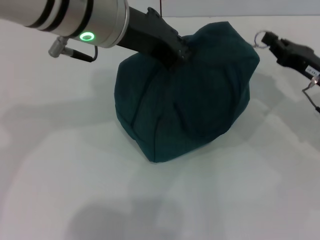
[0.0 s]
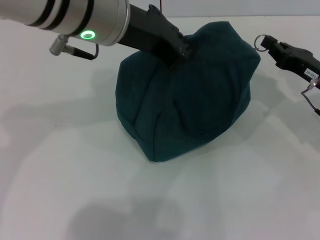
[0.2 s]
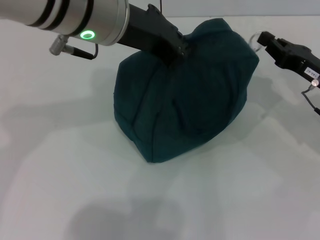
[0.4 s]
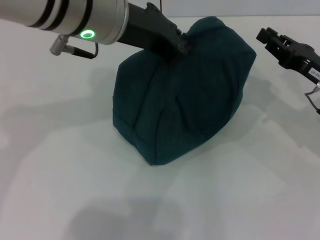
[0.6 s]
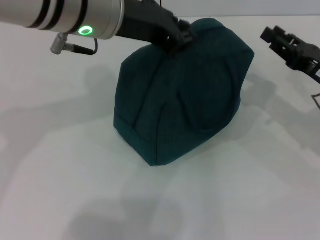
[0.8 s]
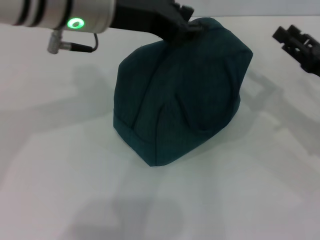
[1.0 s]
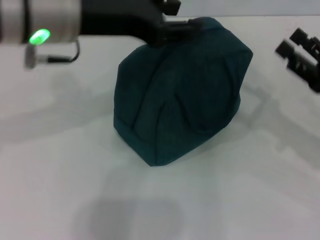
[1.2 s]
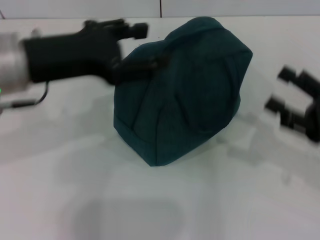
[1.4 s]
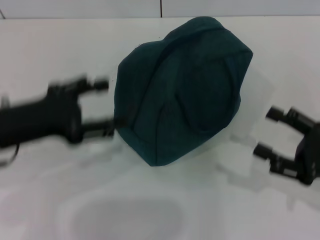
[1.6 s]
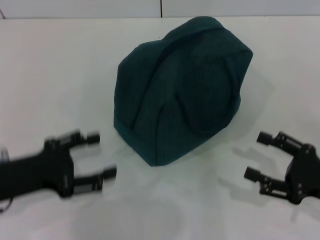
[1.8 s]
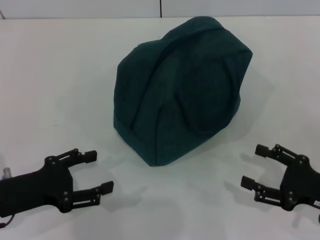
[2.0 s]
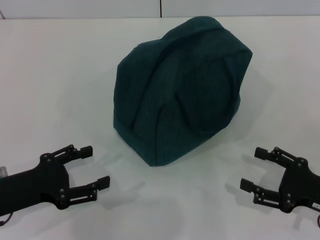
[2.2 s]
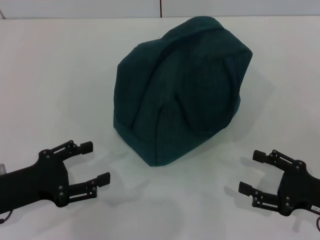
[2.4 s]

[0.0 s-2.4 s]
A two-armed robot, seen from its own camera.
0.0 to 1.2 s: The right gripper goes about 5 cm backward, and opens up. The left gripper is displaced to the left by about 5 cm.
1.2 to 2.4 s: The right gripper shifts approximately 10 cm backward and downward. The left gripper moves downward, to the left and backward, roughly 25 cm, and opens its fingers.

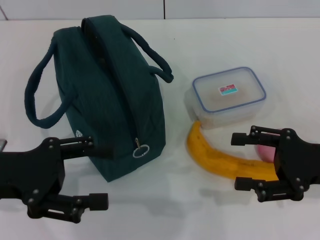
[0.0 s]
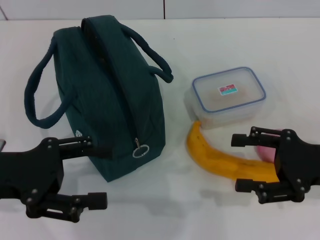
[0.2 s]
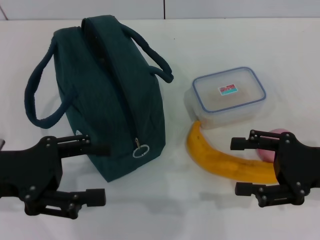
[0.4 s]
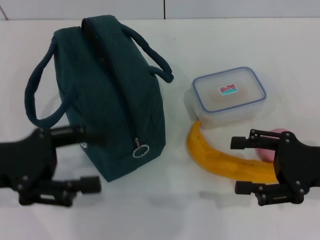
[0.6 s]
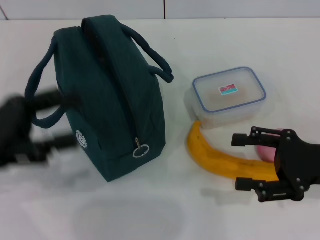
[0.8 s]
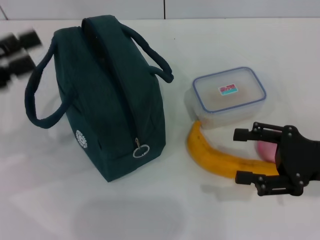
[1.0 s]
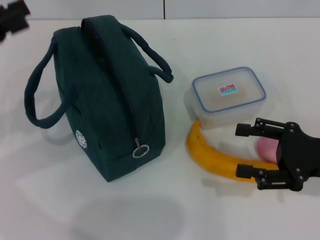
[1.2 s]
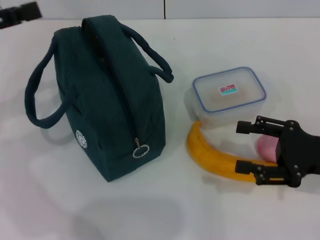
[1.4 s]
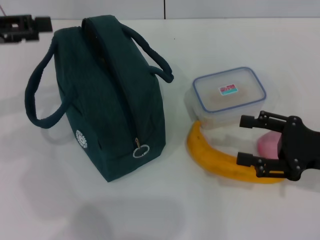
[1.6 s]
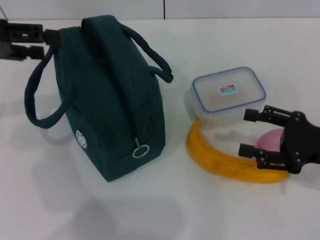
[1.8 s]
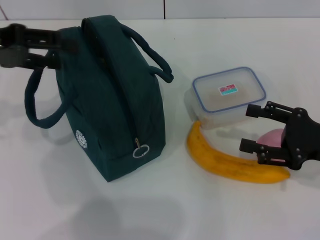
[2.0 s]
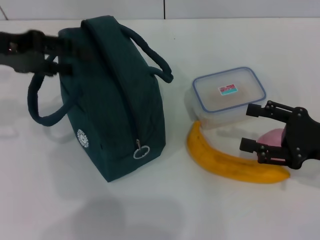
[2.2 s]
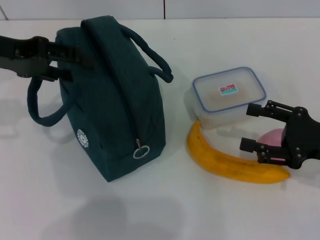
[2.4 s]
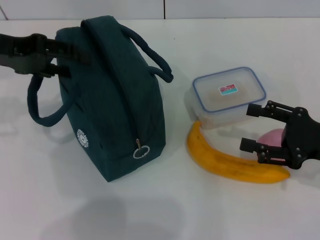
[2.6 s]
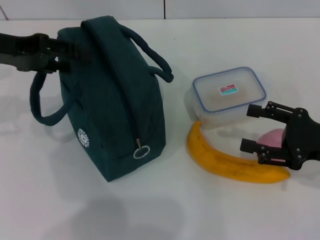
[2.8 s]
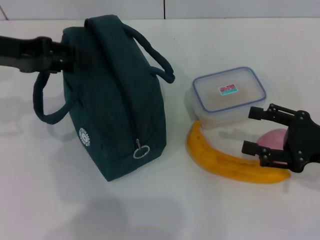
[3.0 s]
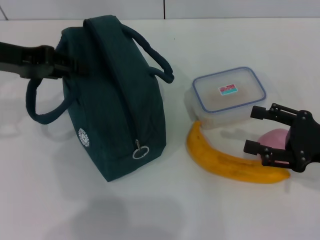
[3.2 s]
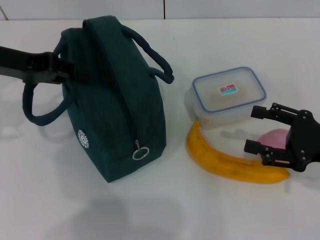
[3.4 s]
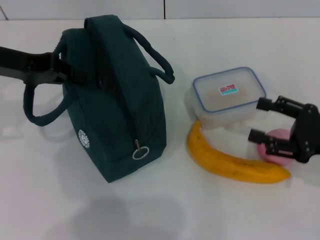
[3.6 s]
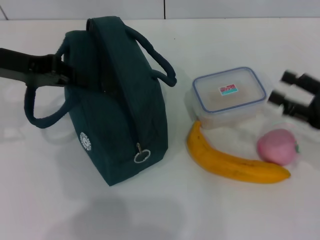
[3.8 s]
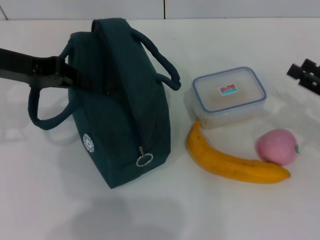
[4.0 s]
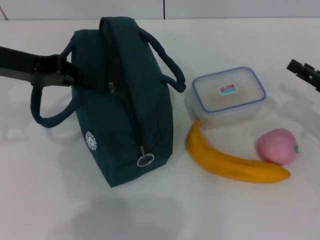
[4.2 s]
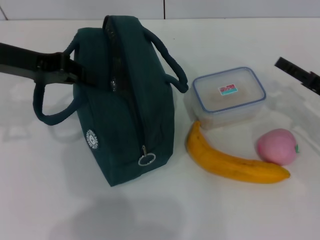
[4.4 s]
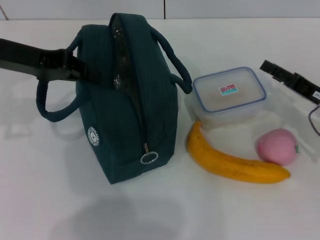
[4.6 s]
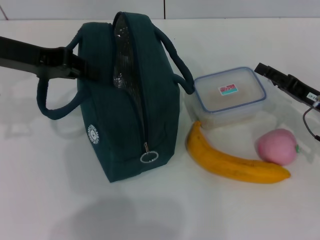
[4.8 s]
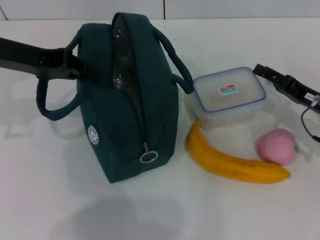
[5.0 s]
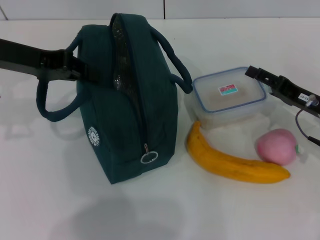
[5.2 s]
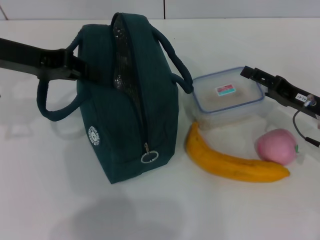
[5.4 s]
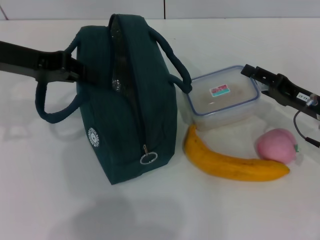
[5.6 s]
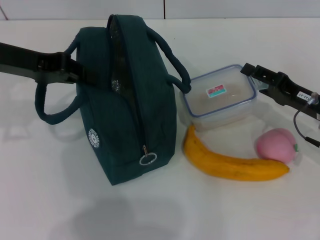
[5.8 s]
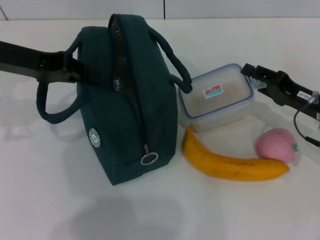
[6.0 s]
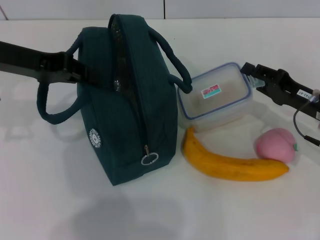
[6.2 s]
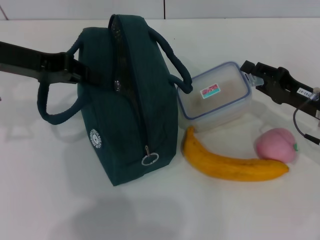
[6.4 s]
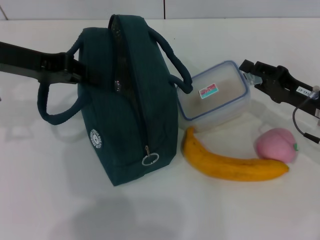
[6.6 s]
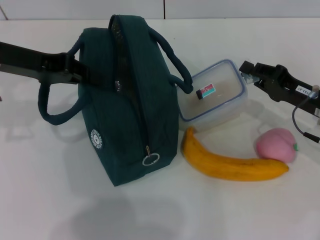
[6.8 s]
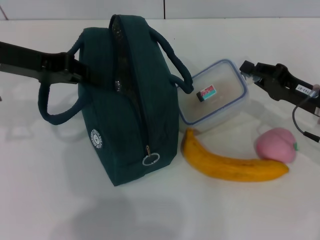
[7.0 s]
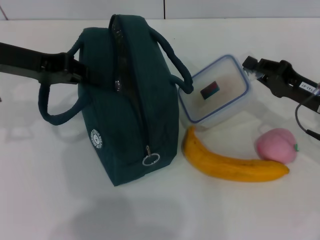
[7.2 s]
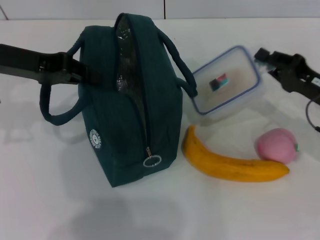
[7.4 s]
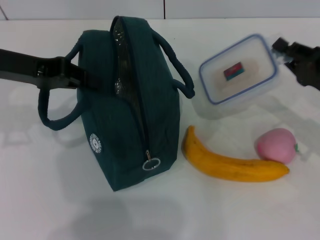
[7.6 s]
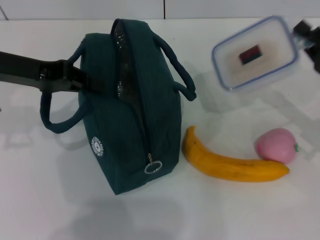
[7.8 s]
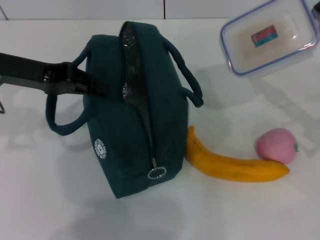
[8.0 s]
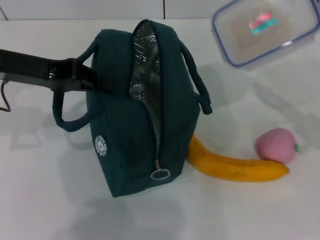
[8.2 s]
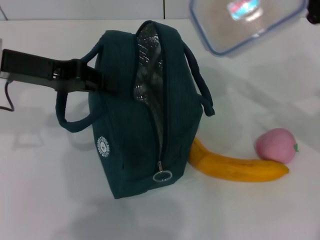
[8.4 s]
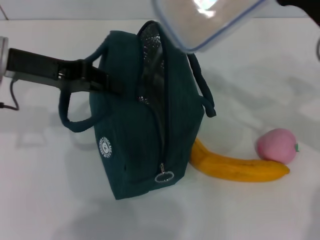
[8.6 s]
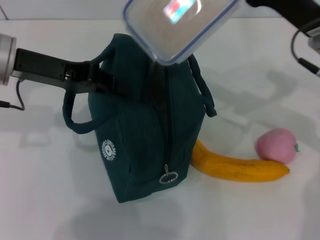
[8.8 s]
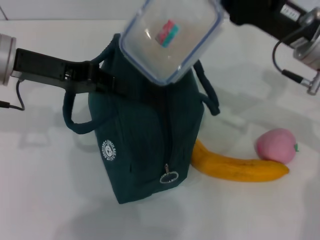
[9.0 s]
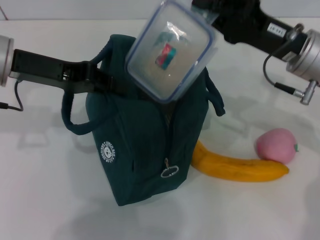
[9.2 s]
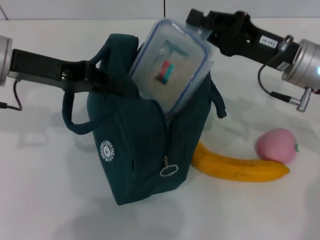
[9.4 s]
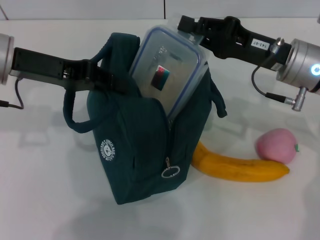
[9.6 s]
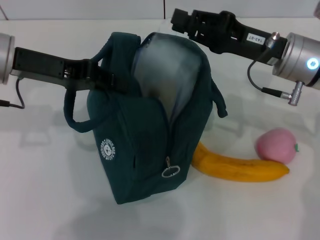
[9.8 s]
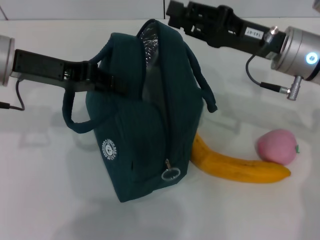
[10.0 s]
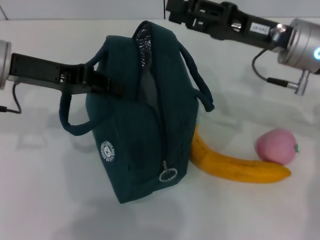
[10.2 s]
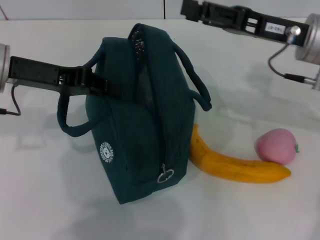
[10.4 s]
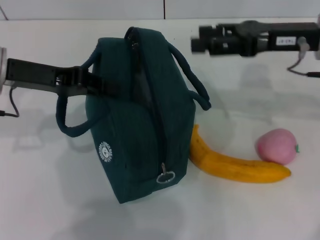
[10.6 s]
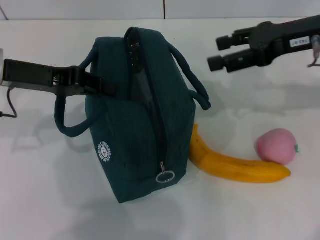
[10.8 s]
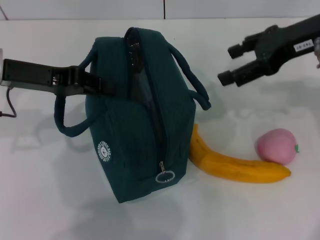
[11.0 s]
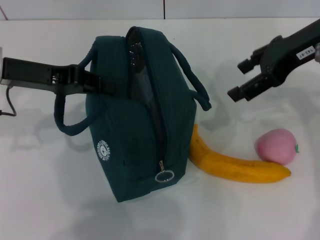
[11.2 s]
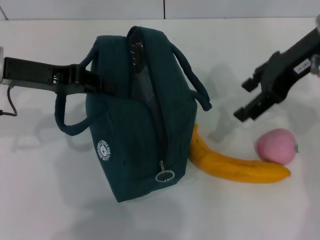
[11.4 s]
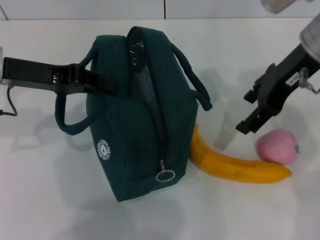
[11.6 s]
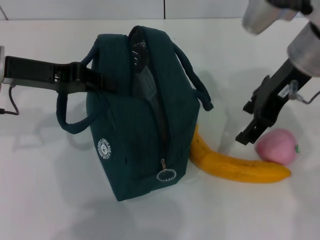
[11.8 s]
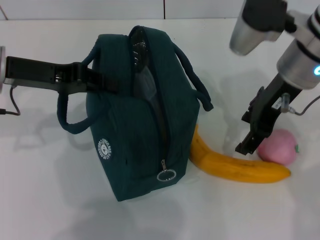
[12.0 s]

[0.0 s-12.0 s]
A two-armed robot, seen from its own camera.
Step, 0.0 to 4.4 s: Hold the lunch bag with your left hand.
Step, 4.6 to 5.6 s: Pick up the lunch box with your right hand.
Step, 6.0 to 9.8 s: Place the lunch box into the lunch bag with your right hand.
0.0 to 1.6 s: The left gripper goes some 15 cm forward, upward and to the left.
1.6 to 3.0 s: The left gripper moves approximately 5 cm.
3.0 to 4.4 s: The left gripper closes. The right gripper is displaced forward by approximately 5 cm.
6.0 to 7.6 s: The right gripper closes.
7.6 to 9.0 s: The right gripper heads to the left and upward, covering roughly 10 cm.
9.0 to 10.4 s: The right gripper opens up.
10.4 to 12.0 s: The right gripper moves to the left, roughly 5 cm.

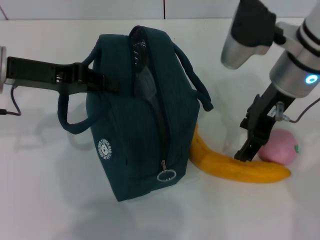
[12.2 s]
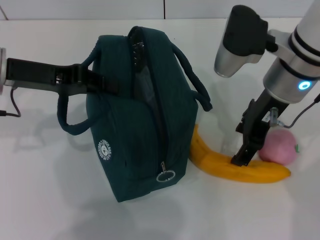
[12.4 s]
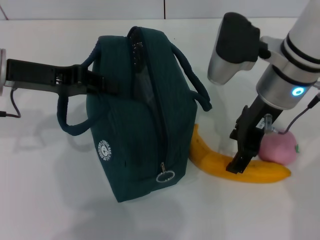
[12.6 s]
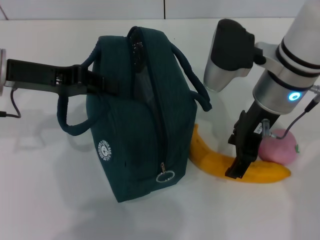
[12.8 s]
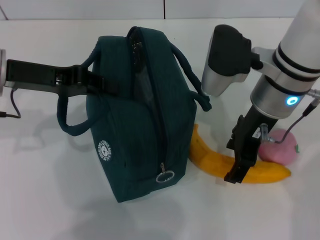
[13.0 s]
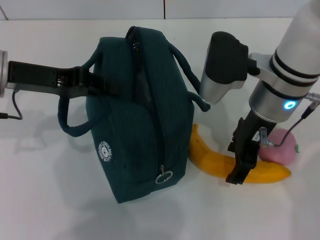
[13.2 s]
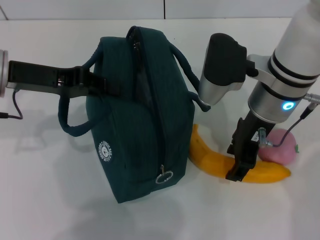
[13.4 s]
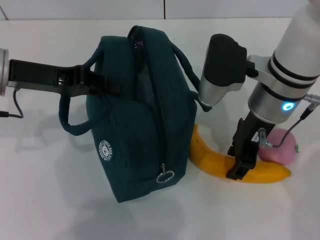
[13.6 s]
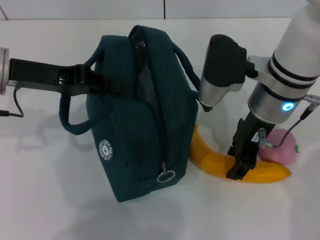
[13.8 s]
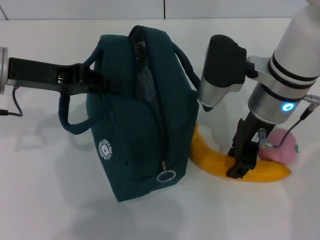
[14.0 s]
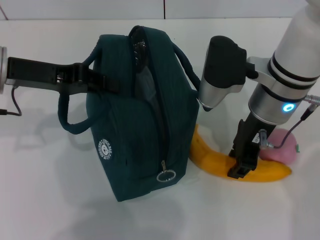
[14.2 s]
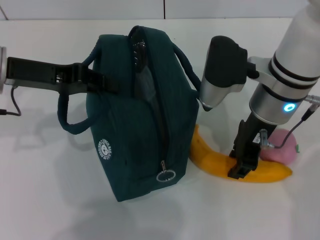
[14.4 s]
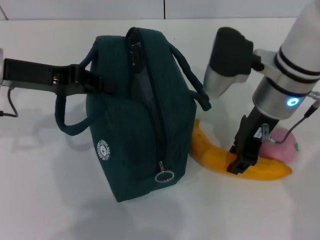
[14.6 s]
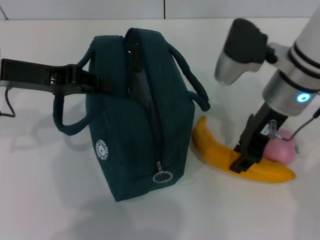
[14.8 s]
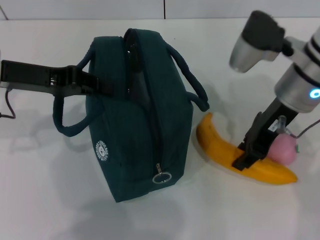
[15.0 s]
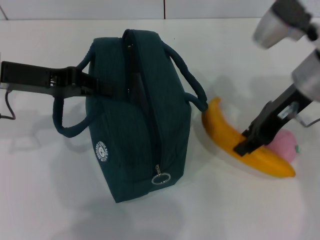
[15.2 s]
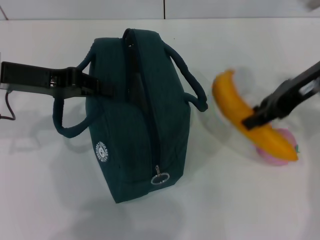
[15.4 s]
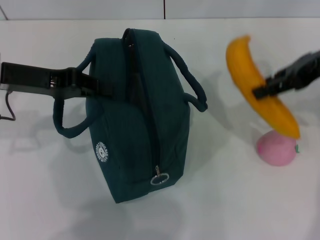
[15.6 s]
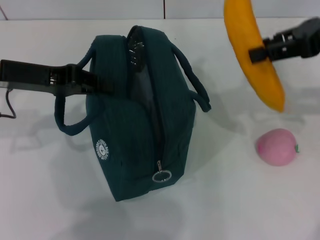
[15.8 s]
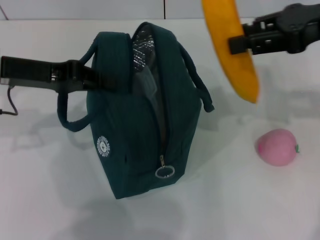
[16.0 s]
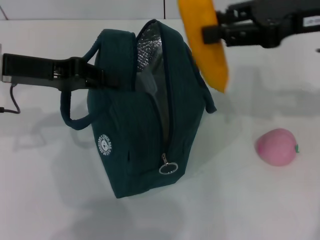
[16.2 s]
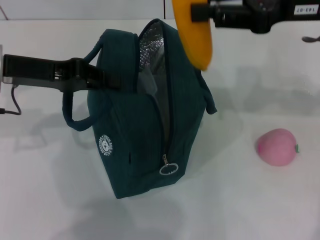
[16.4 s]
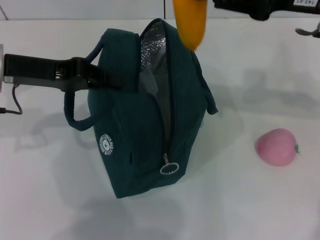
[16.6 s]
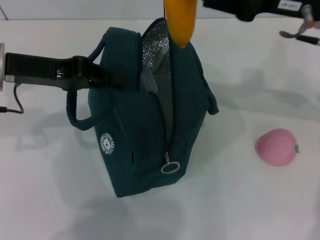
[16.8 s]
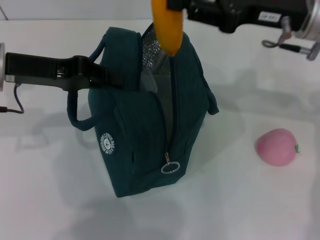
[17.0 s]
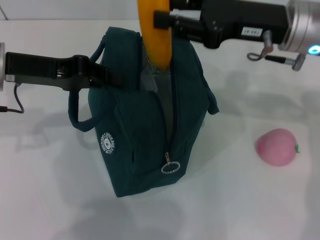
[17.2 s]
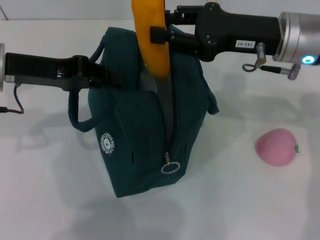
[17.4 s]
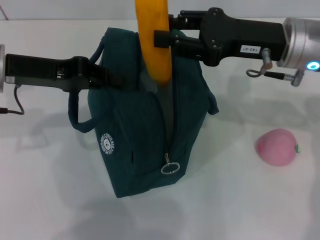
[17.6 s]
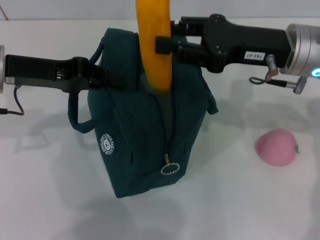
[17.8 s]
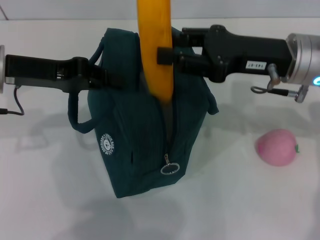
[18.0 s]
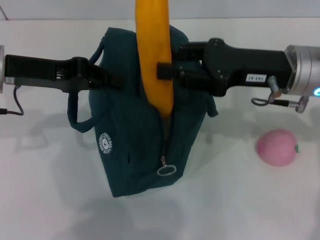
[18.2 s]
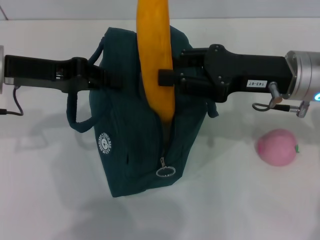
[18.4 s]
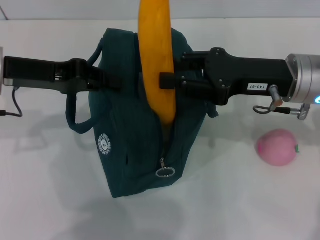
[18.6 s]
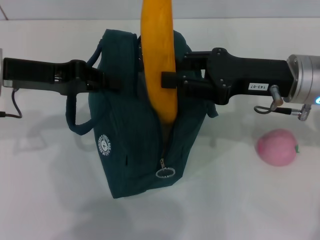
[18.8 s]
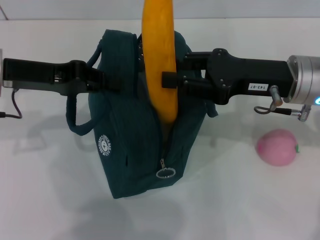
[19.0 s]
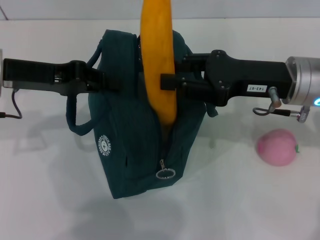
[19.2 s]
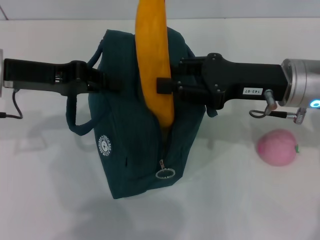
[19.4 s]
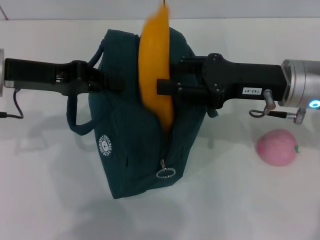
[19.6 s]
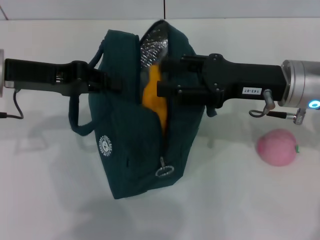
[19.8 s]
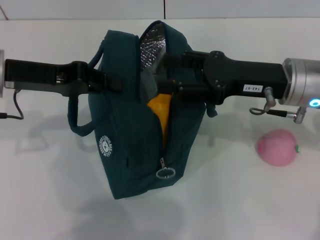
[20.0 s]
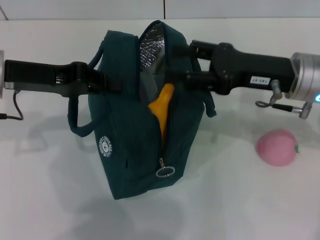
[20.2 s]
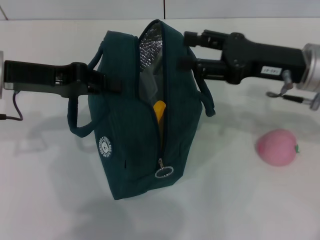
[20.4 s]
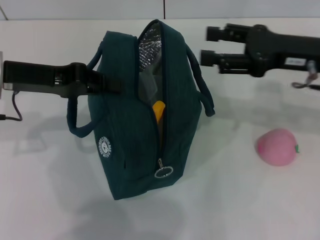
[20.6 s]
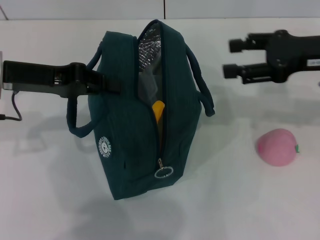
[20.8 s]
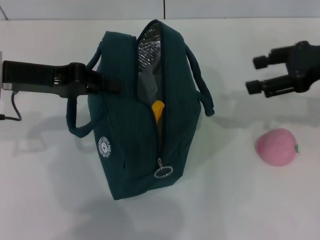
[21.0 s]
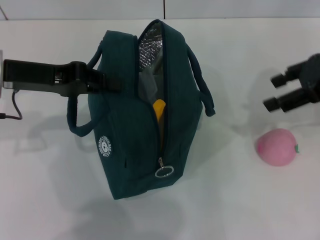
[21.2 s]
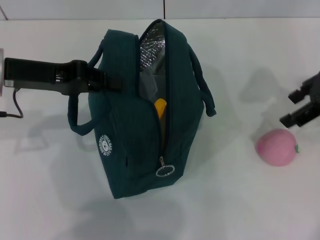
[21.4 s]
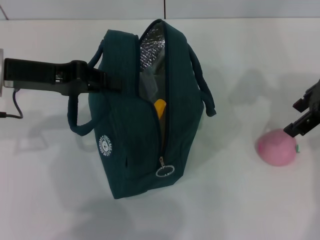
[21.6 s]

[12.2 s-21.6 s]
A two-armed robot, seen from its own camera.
Step, 14.2 to 20.2 s: Put the banana into the lunch bag with your right hand.
12.2 to 13.8 s: The right gripper closes.
13.8 to 15.4 s: The right gripper travels to the right by approximately 10 cm.
17.0 to 18.4 s: The right gripper is displaced downward by about 5 cm.
18.4 to 20.0 s: The right gripper opens up.
20.0 to 21.6 s: The right gripper is displaced upward and to the right by some 10 cm.
